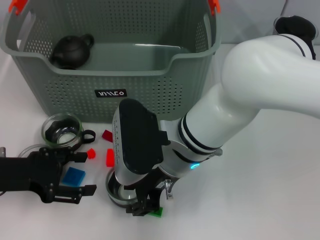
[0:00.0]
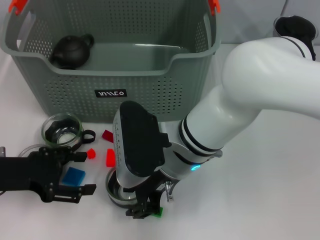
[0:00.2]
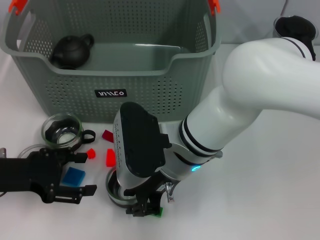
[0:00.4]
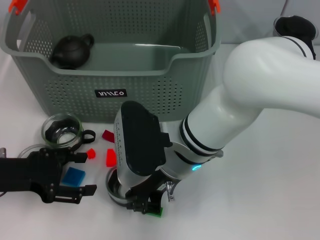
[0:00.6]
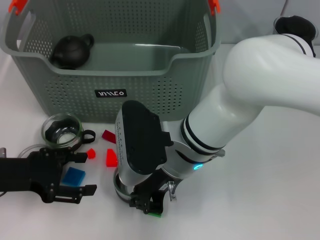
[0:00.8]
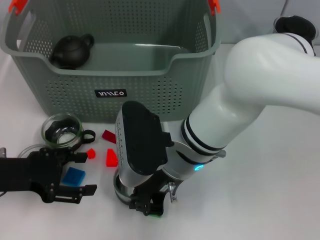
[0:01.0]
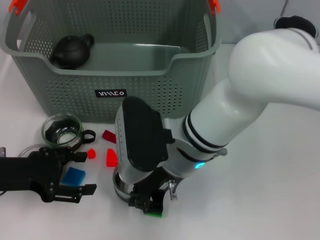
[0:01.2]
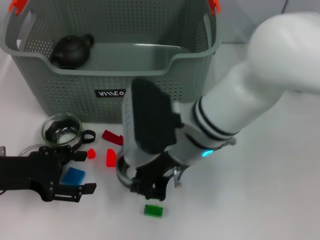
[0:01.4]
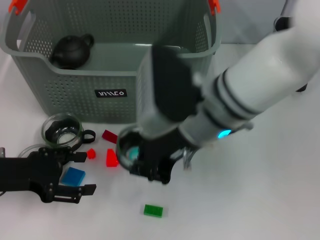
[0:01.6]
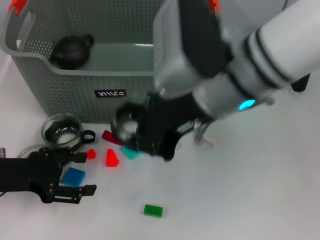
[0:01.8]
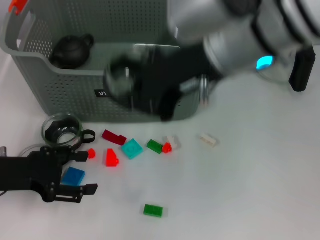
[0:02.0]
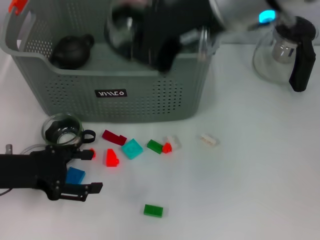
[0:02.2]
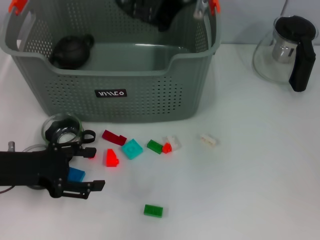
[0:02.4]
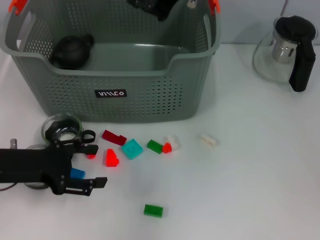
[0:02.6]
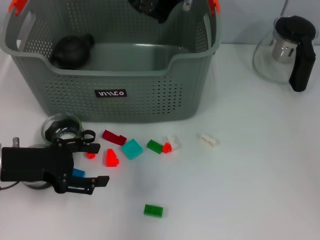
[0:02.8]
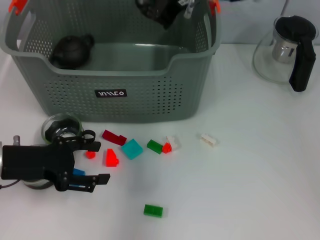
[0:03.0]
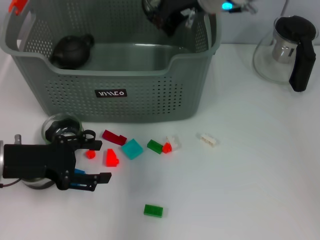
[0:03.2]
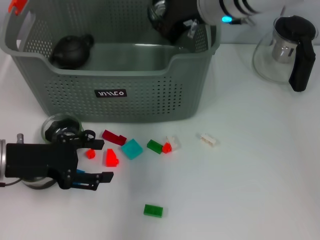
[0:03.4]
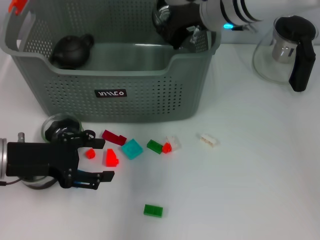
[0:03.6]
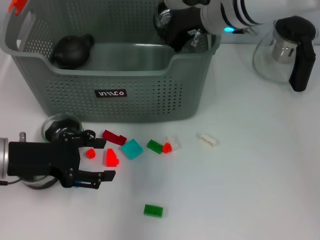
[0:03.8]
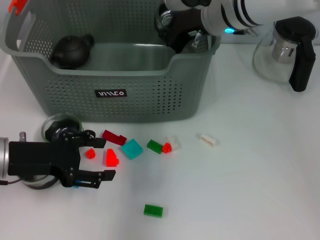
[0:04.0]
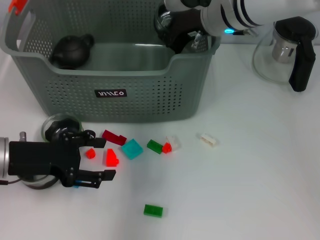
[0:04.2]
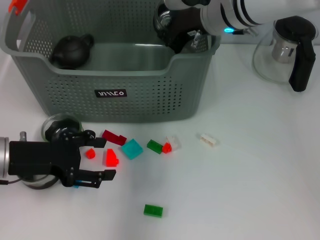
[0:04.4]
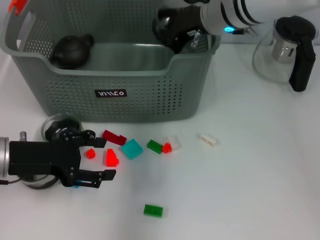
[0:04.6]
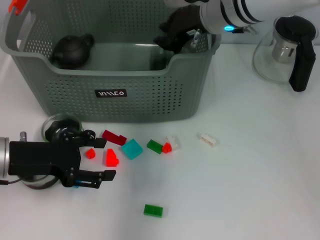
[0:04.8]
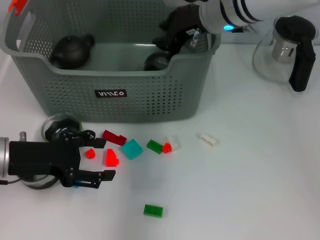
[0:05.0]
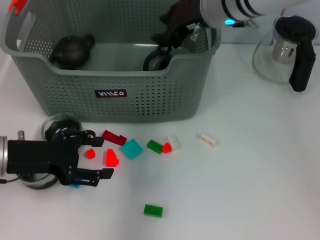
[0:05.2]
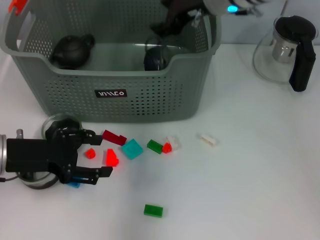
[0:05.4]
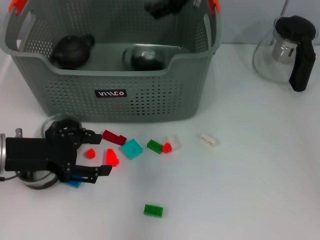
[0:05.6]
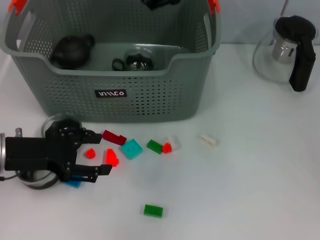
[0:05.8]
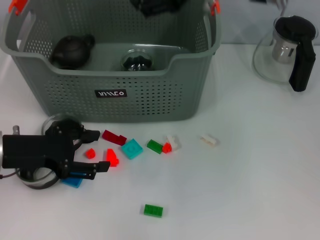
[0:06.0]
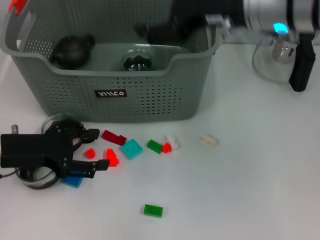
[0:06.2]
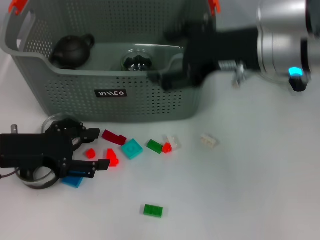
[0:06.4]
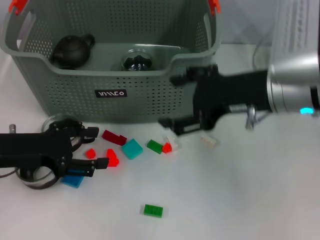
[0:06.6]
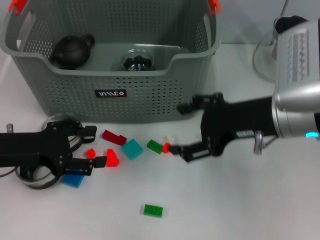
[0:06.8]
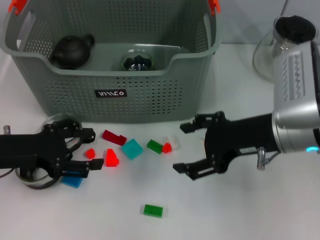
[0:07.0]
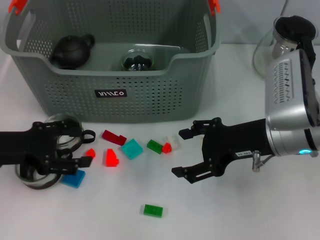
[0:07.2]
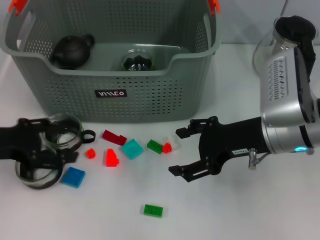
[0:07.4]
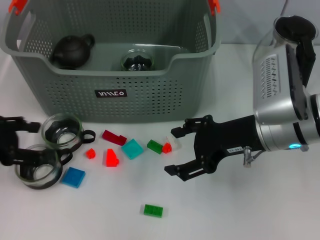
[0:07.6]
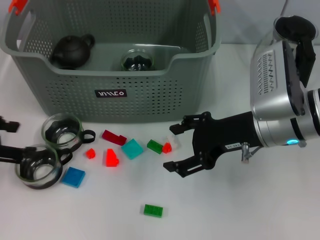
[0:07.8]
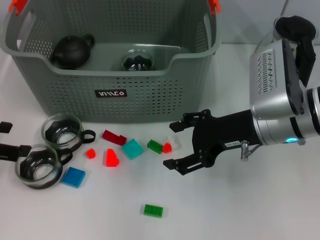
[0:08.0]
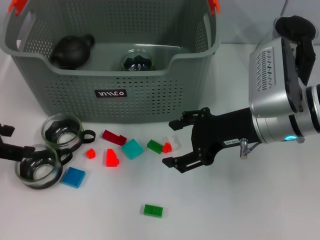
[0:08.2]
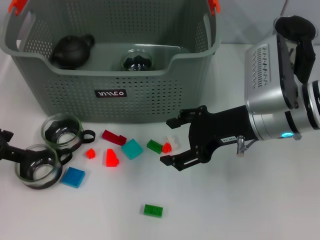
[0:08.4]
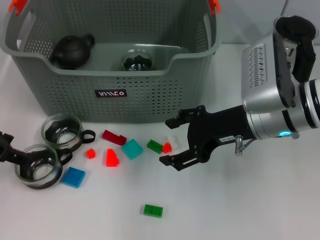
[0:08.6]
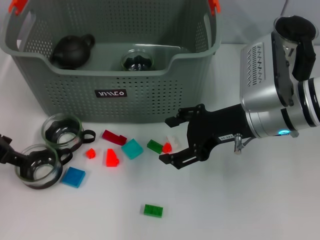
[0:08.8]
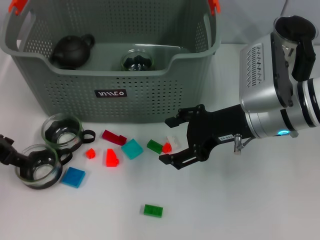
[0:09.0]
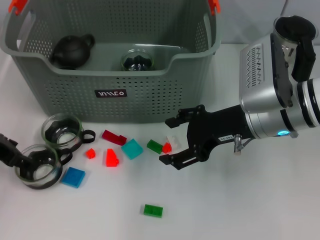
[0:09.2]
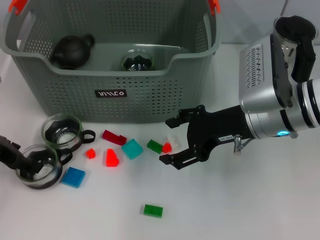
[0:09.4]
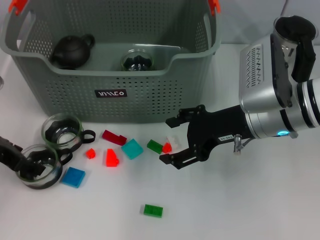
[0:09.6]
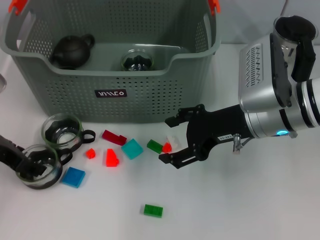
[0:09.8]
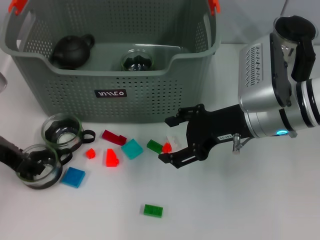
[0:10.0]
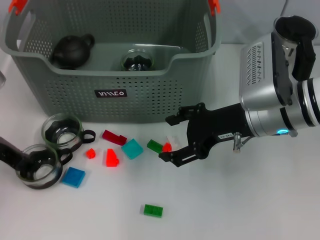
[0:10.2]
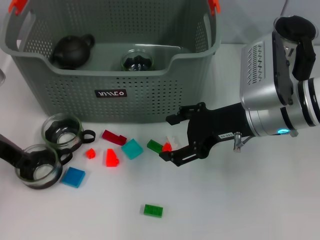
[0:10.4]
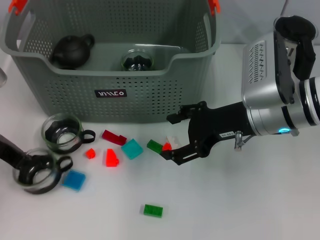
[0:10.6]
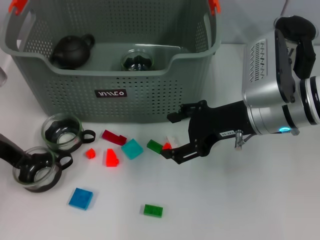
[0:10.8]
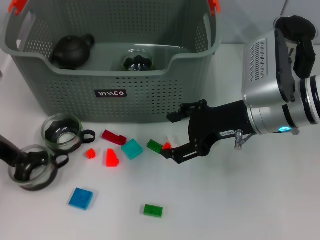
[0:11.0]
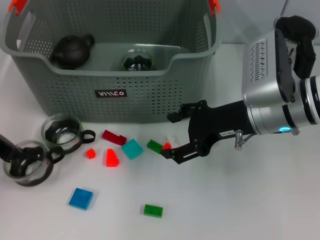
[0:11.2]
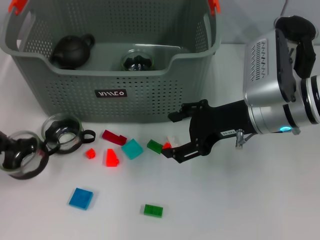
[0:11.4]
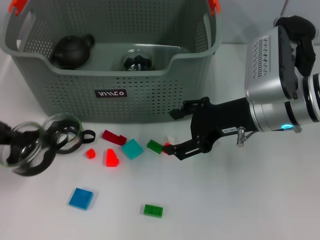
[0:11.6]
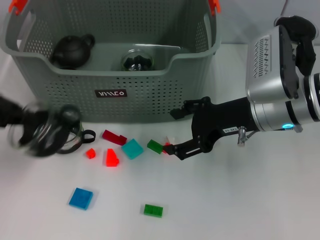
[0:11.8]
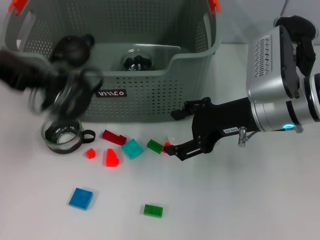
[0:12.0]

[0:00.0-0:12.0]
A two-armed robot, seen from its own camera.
Task of the whole recording: pick up the teacup on the table and place it into the storage bin, pick up the block on the table and place it into the storage bin.
Step, 1.0 to 4.8 s: Place the cup in the storage box with right gripper.
Step, 5.0 to 10.6 s: Grasp the cup with left gripper.
0.0 to 1.6 s: The right gripper moves upward, roughly 5 cm, and closes up.
1.6 to 3.0 s: The right gripper shifts roughly 15 cm forward and upward.
3.0 to 4.4 s: The right gripper heads downward, covering approximately 5 cm.
4.4 to 6.0 s: The right gripper travels upward and backward by approximately 10 cm, and opens up.
6.0 to 7.6 s: The left gripper heads to the left, covering approximately 5 cm. The right gripper is displaced downward and backward by some 15 cm.
9.0 to 10.4 s: The left gripper closes its fingers.
10.4 to 12.0 s: The left gripper moves upward, approximately 15 cm, and closes its fingers.

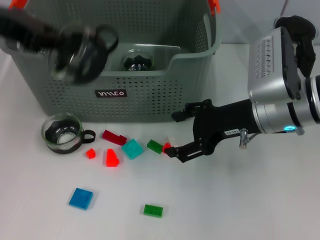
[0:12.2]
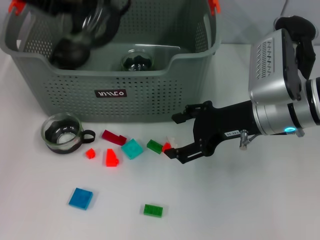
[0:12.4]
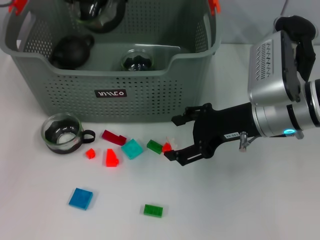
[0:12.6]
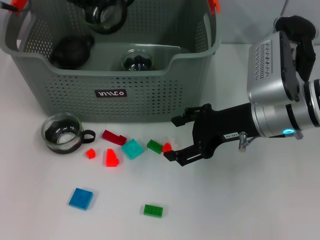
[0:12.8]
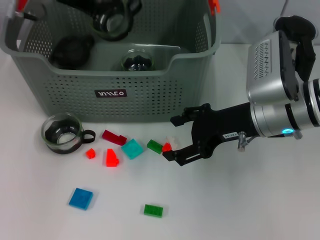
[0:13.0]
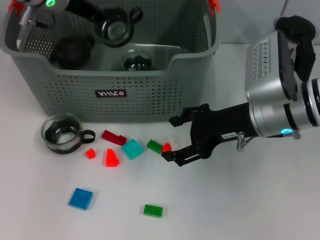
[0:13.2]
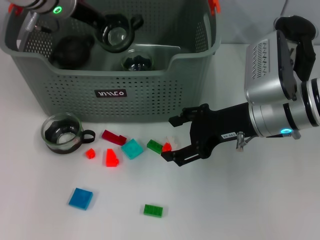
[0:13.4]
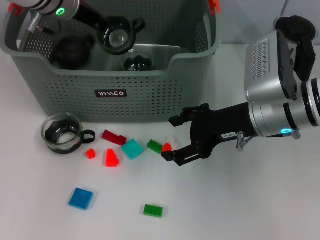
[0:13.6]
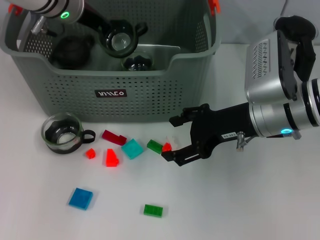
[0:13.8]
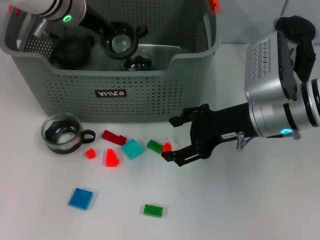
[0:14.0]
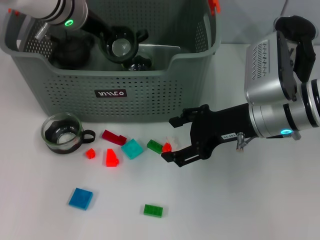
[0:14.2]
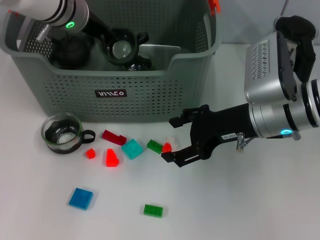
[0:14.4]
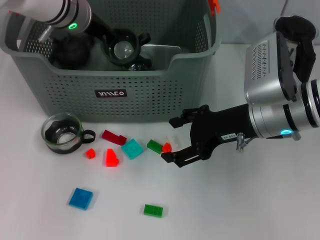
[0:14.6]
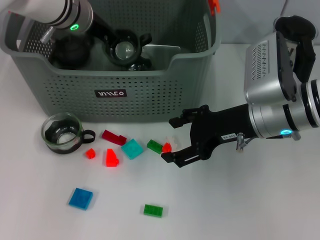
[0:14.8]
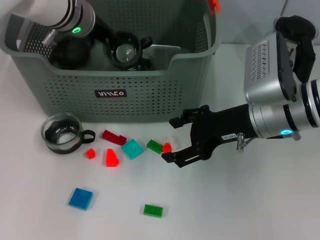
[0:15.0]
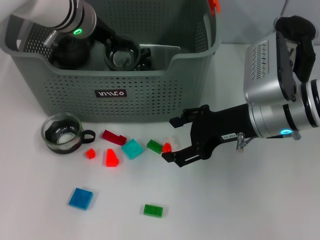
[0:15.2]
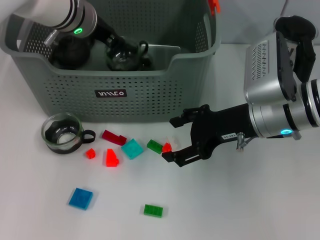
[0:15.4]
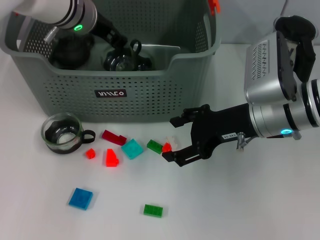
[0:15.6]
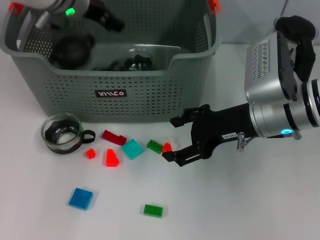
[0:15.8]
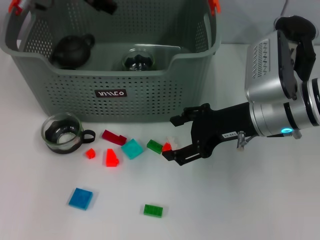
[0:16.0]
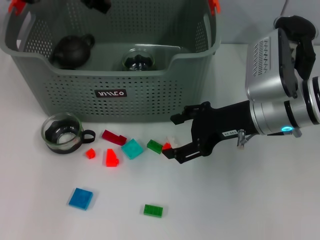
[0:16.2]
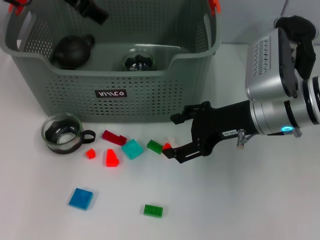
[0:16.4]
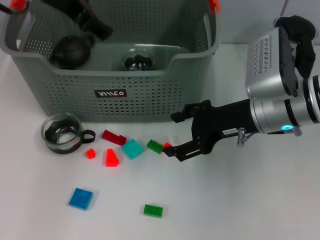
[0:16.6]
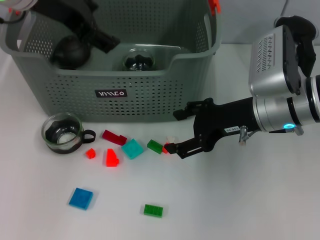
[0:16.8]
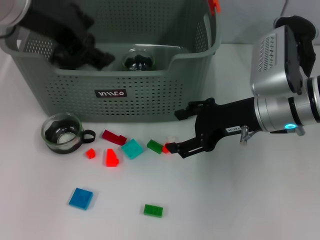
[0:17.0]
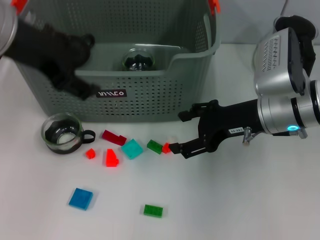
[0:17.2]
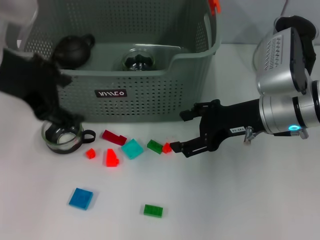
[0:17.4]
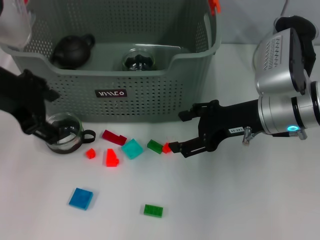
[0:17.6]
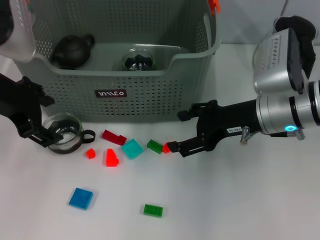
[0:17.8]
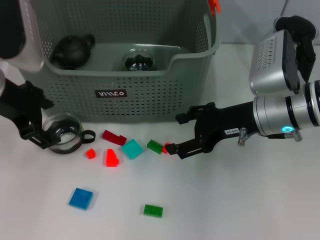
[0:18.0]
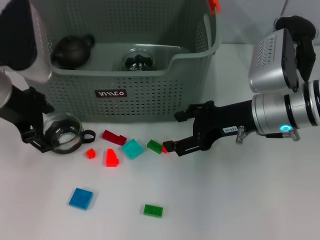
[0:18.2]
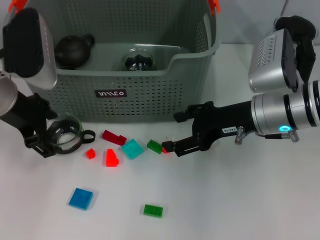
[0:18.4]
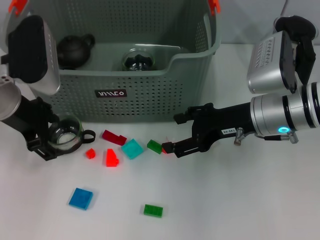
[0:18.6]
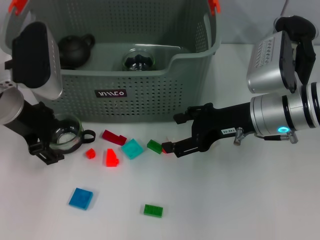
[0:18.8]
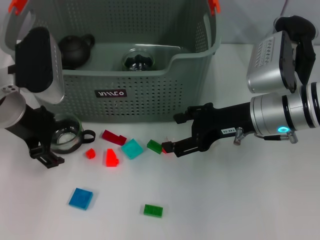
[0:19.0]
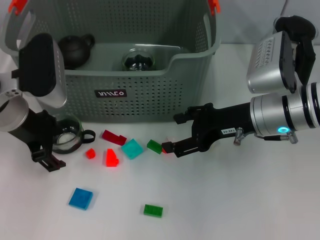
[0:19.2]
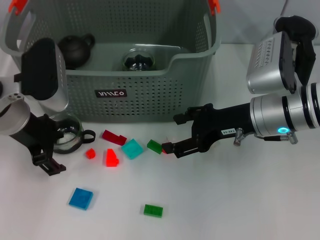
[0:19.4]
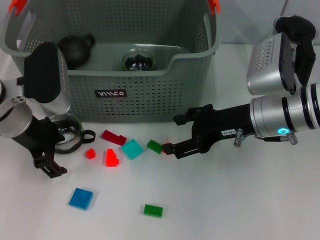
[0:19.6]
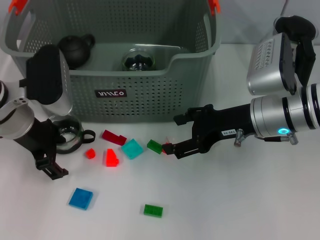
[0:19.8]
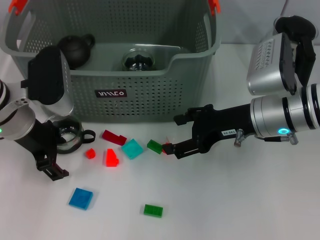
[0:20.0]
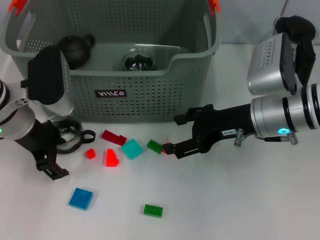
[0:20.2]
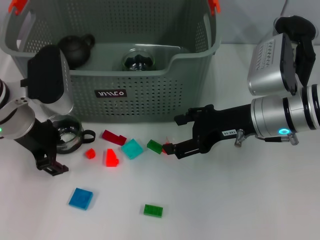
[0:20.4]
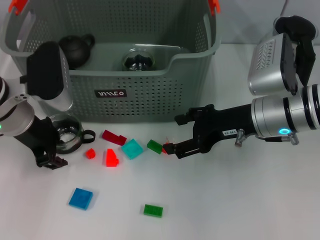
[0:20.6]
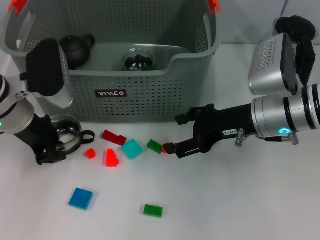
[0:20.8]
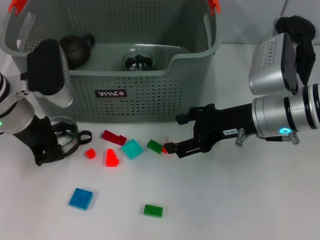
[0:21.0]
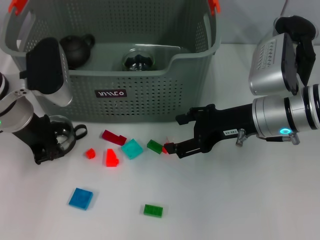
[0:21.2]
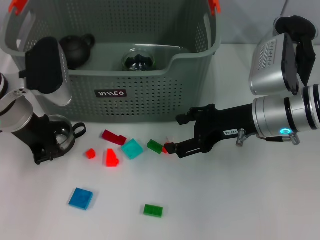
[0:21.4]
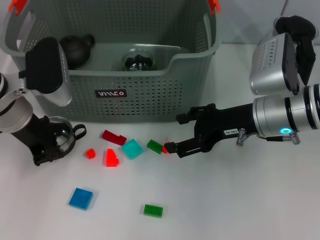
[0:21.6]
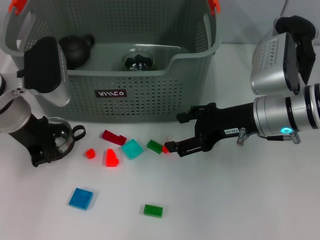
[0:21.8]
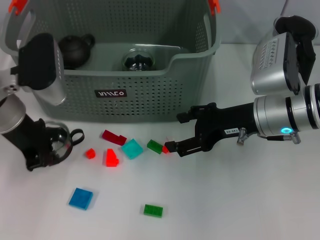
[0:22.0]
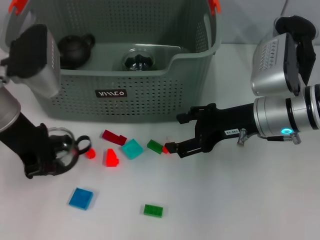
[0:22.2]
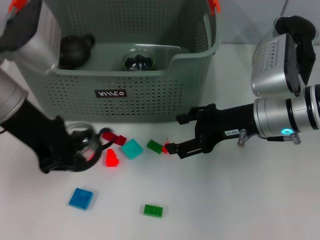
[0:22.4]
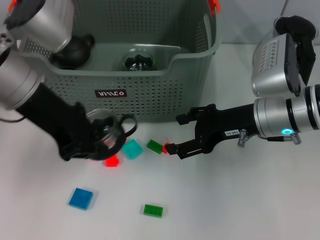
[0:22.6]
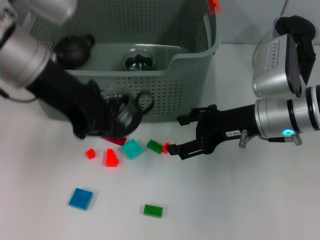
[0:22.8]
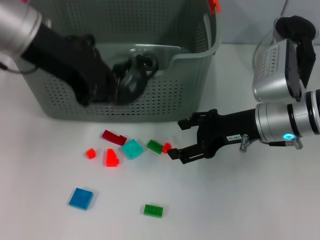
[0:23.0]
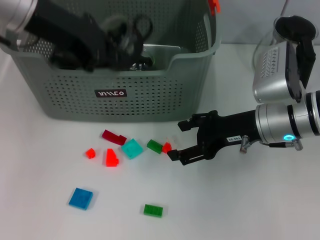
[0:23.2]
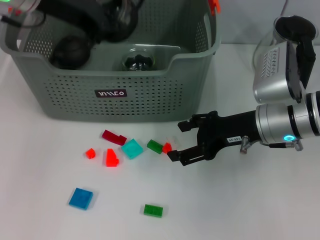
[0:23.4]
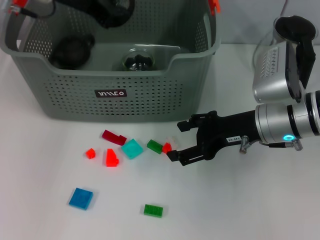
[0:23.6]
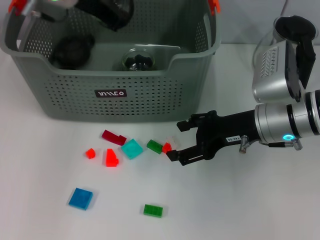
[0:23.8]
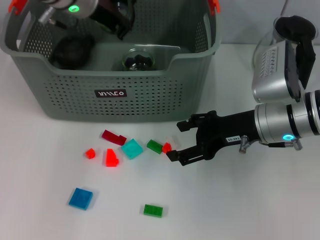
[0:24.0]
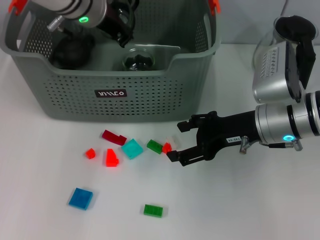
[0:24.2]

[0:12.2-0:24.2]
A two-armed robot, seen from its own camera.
Task of the whole recording: pick up the teacup on the table and place it into the storage bin, pick up the block on the table and place it into the storage bin.
Step, 12.2 to 15.6 s: Place the cup in the storage box with left gripper.
Step, 15.8 to 21.0 s: Grasp the cup with left gripper.
12.2 to 13.8 s: The left gripper goes approximately 20 cm forward, to the right and downward.
13.8 to 15.2 s: The grippers move only a little.
15.2 to 16.6 s: The left gripper is displaced upward and backward by some 15 cm, and opens.
16.6 to 18.2 s: The left gripper goes roughly 15 cm downward, to the left and backward.
18.2 to 19.8 s: The left gripper is displaced downward by about 5 cm.
19.8 to 21.2 s: The left gripper closes.
21.2 to 22.6 s: The left gripper goes roughly 10 cm upward.
22.6 to 24.2 s: The left gripper shifts some 15 cm forward and to the right.
